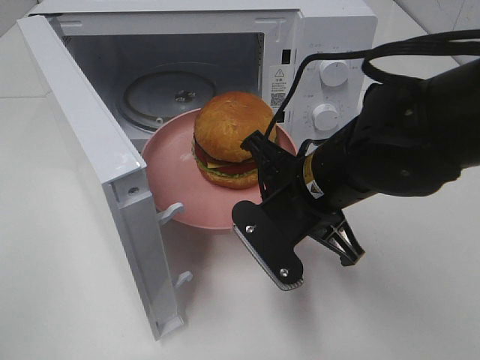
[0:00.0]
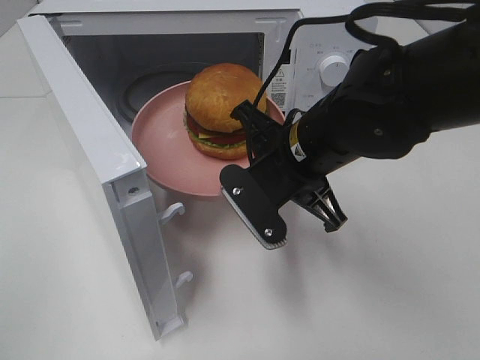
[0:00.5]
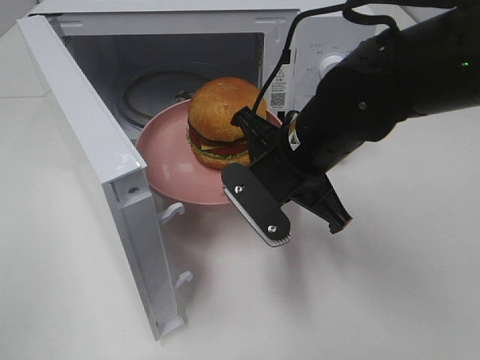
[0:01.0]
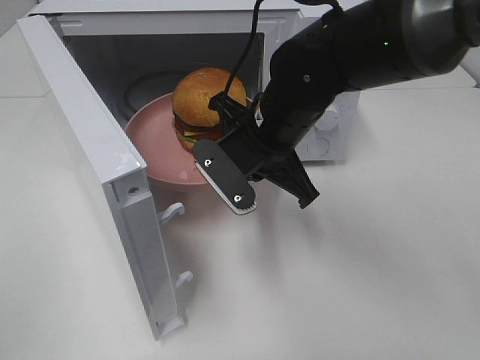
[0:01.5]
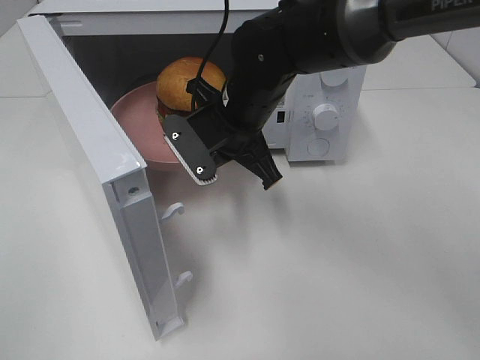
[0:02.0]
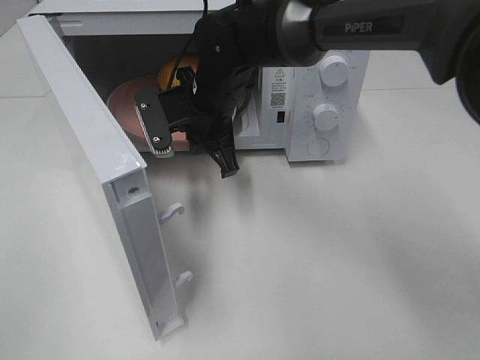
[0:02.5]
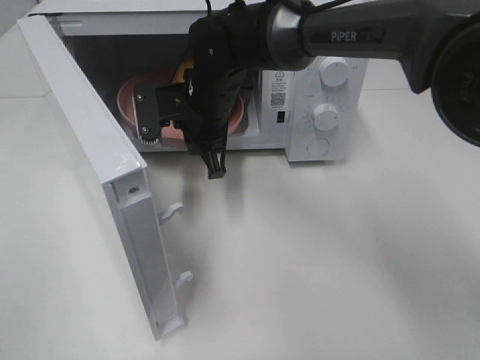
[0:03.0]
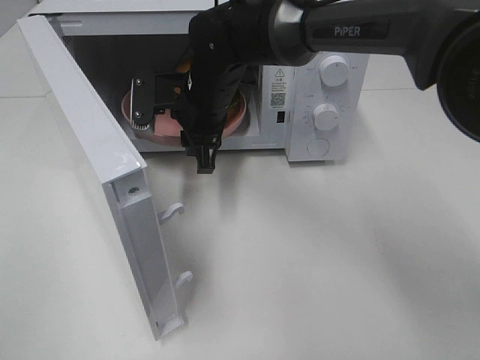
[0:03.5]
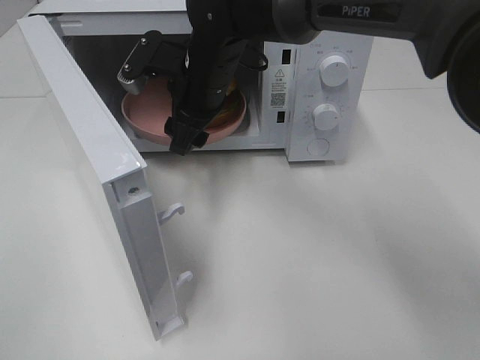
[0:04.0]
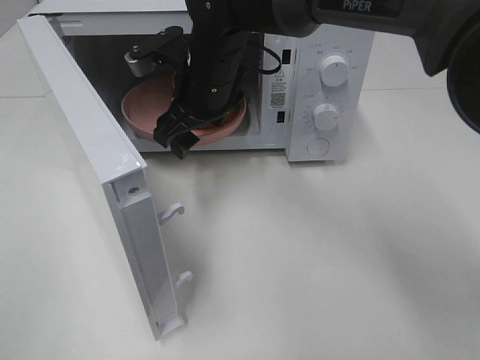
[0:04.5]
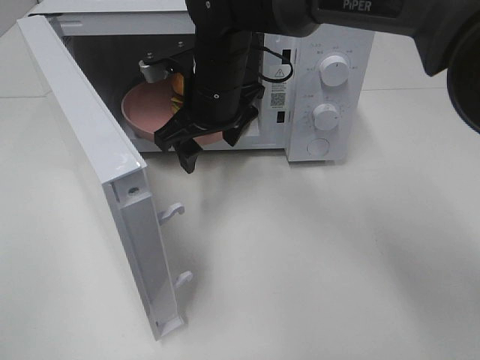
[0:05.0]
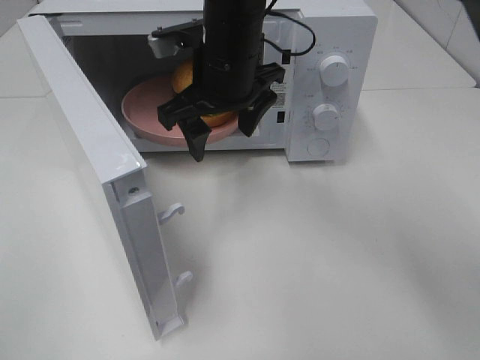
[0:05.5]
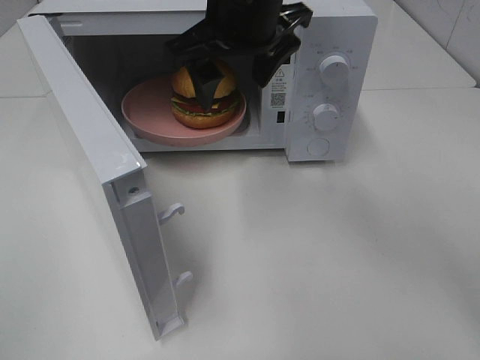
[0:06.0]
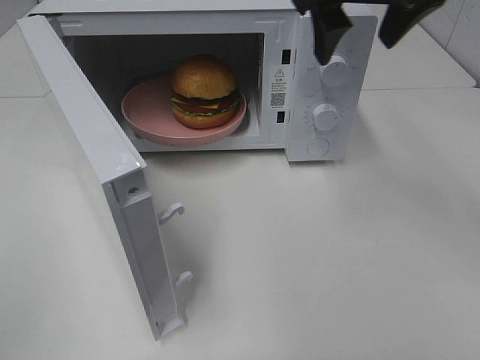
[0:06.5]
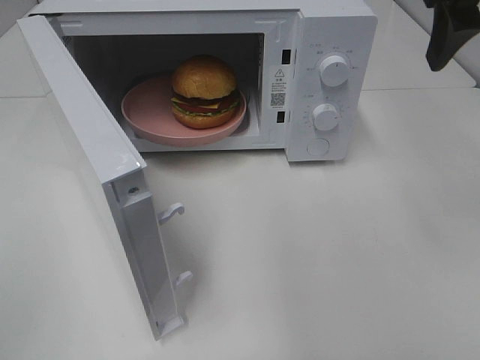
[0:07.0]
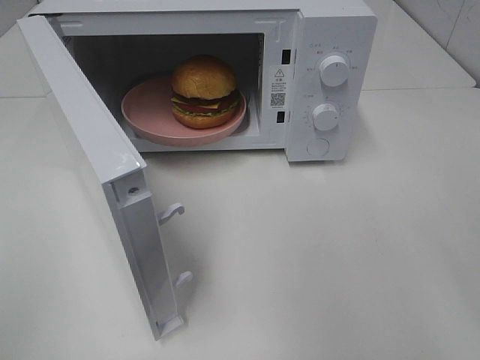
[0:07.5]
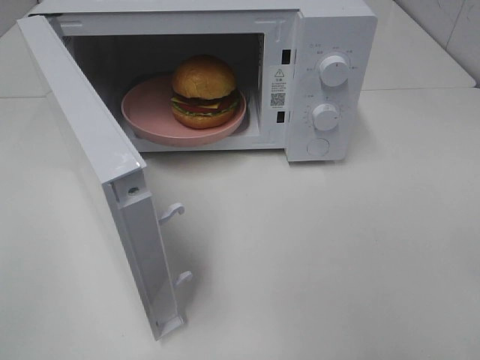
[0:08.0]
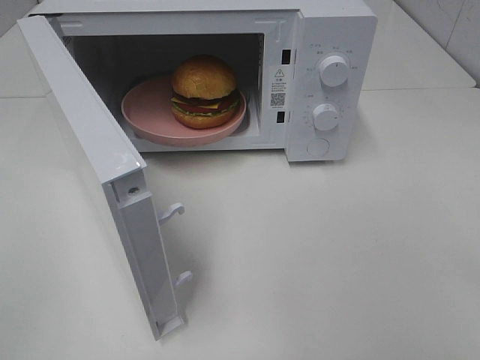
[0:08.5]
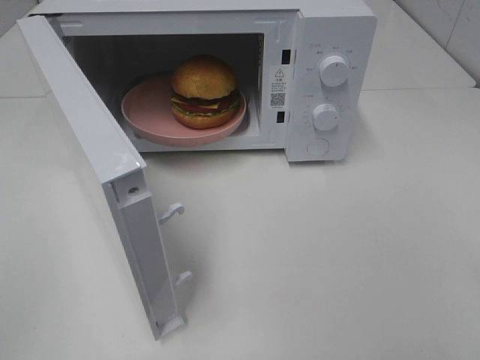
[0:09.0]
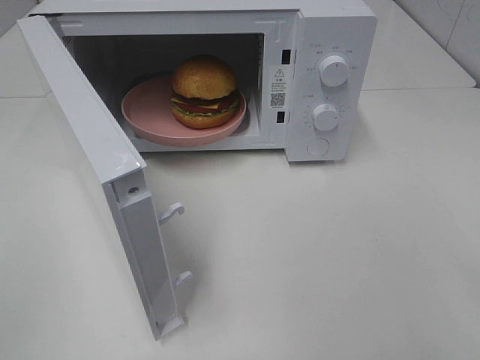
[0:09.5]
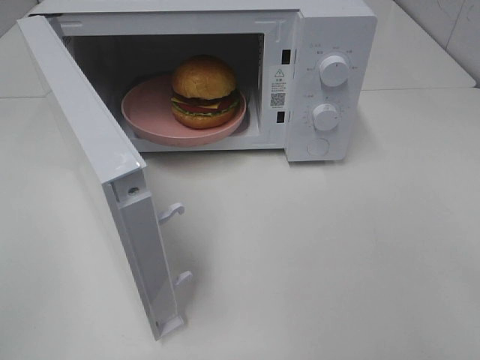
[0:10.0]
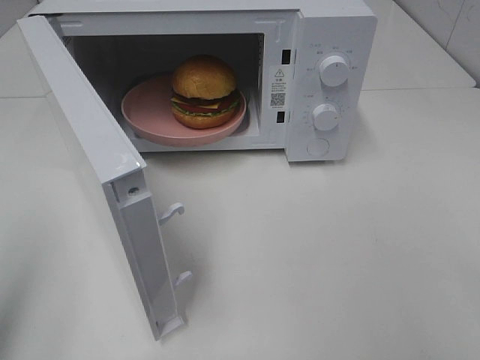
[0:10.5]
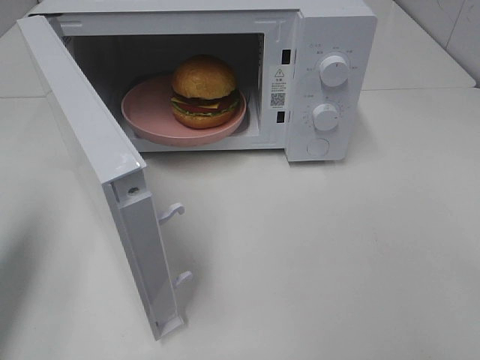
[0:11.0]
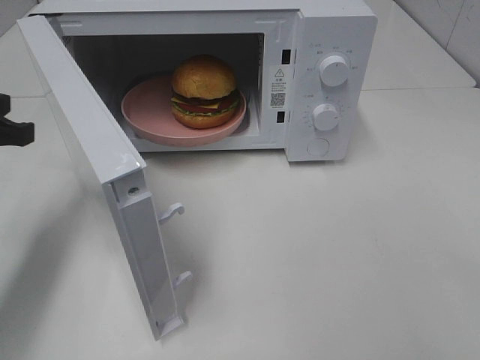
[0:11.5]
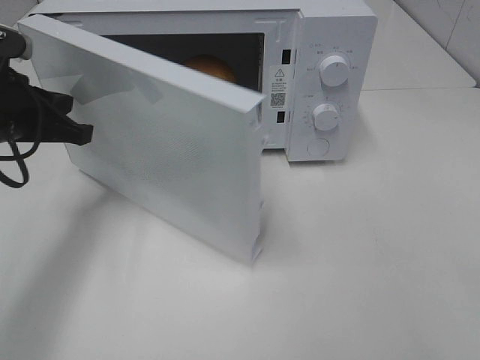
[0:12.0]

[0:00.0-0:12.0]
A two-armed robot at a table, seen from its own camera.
Task of the whole recording: Heat the burger.
Step, 0:00.0 to 0:03.0: Right hand: place the plate in the microwave.
0:00.0 to 0:02.0: The right gripper moves forward and to the left, approximately 15 cm.
0:02.0 to 0:04.0: The right gripper moves about 5 cm, and opens up.
0:04.0 to 0:06.0: The right gripper heads upward and backward, covering some 15 cm.
0:06.0 to 0:08.0: The right gripper travels to the right and backward by roughly 35 cm.
0:10.0 to 0:12.0: The left gripper is displaced forward by roughly 30 cm.

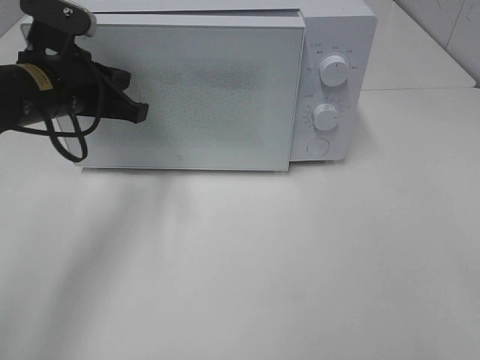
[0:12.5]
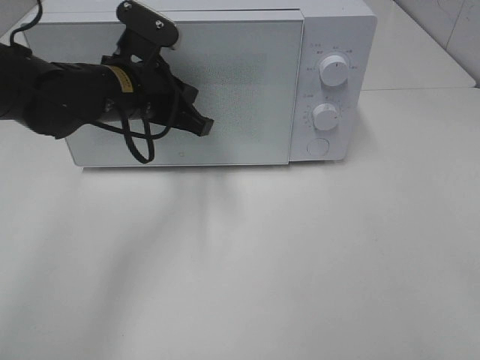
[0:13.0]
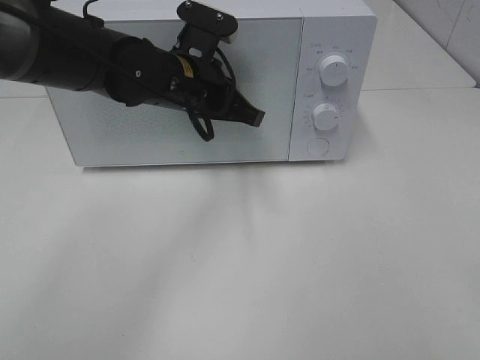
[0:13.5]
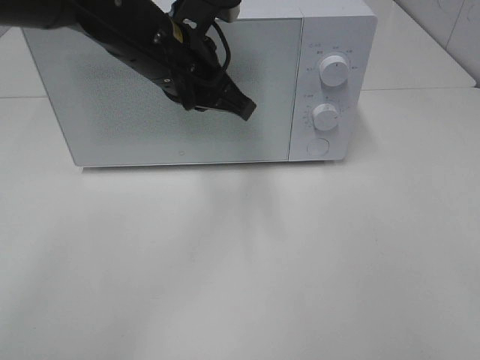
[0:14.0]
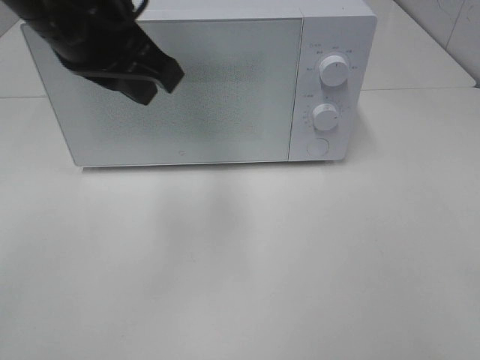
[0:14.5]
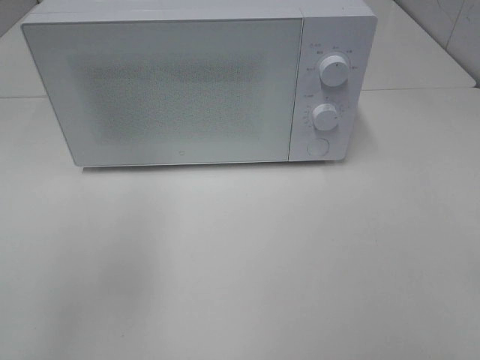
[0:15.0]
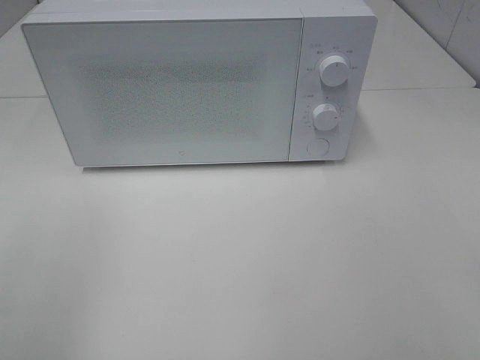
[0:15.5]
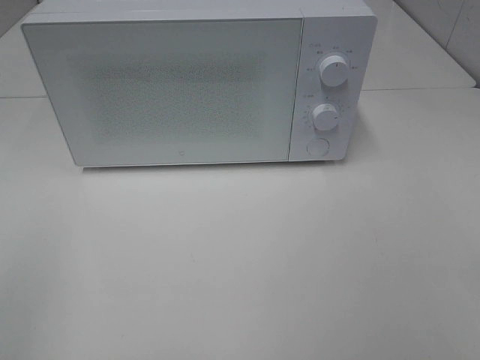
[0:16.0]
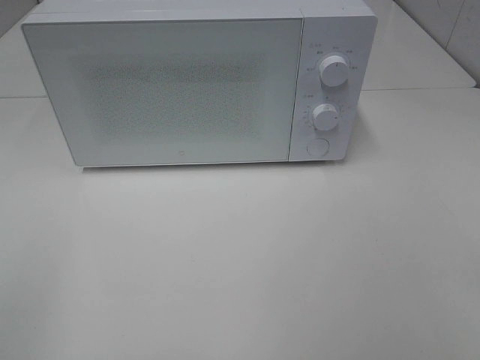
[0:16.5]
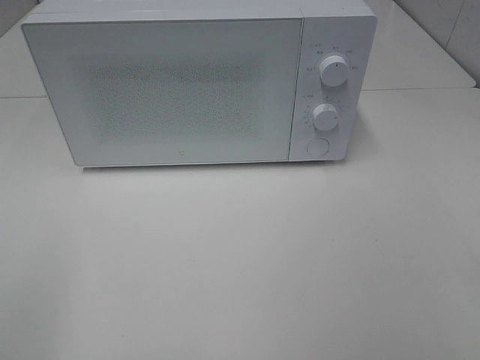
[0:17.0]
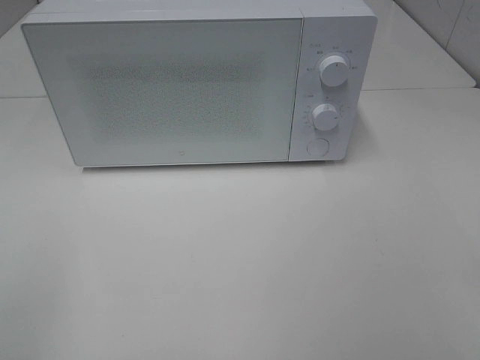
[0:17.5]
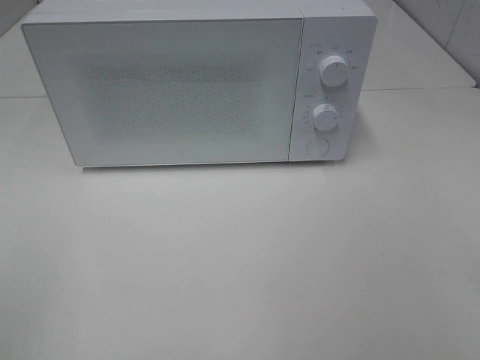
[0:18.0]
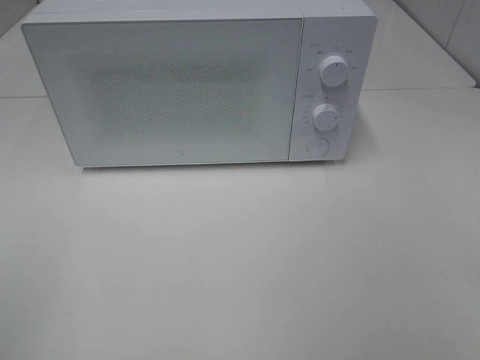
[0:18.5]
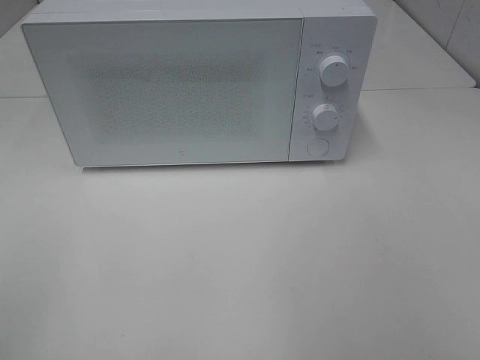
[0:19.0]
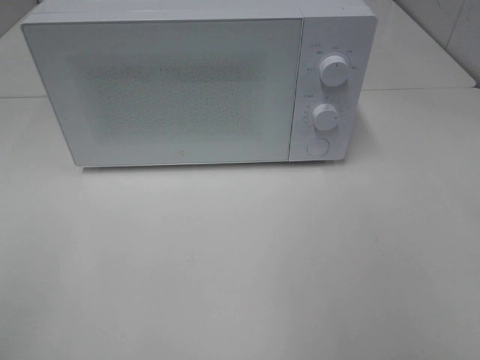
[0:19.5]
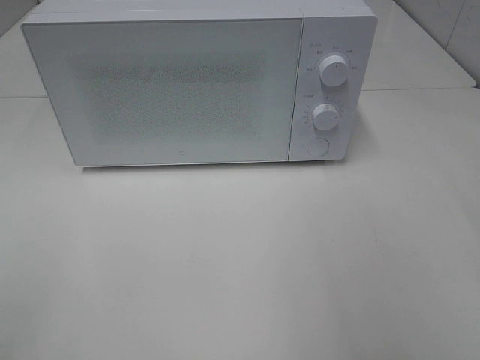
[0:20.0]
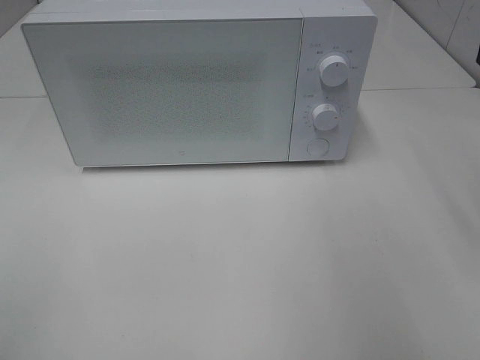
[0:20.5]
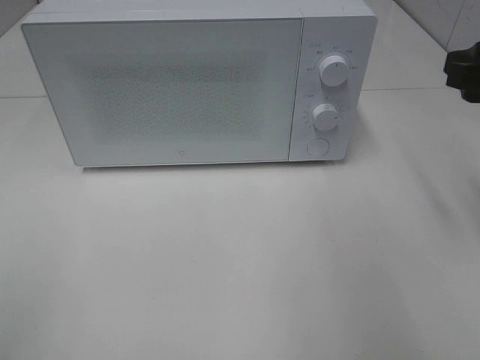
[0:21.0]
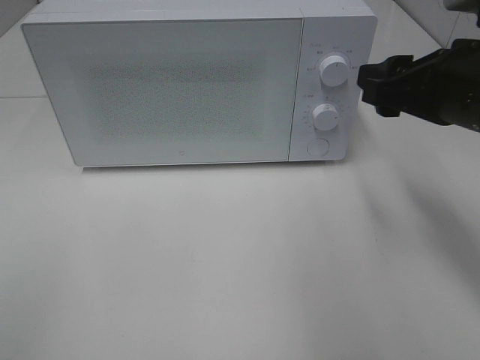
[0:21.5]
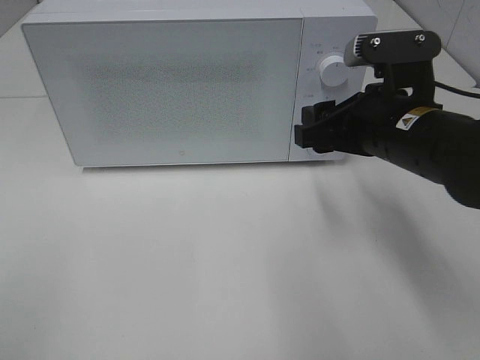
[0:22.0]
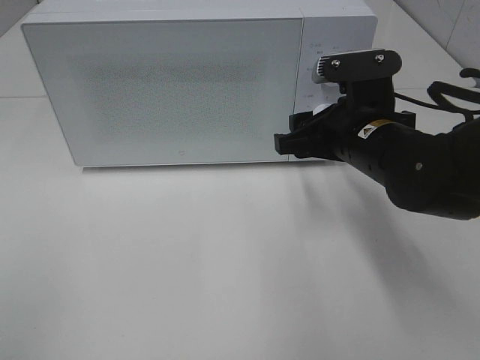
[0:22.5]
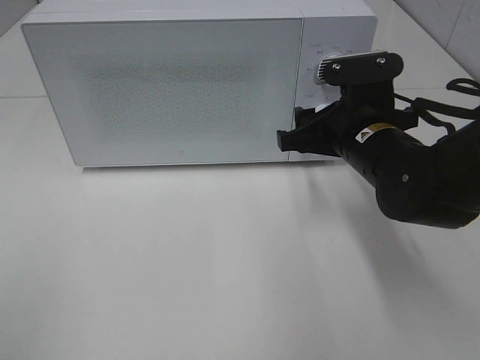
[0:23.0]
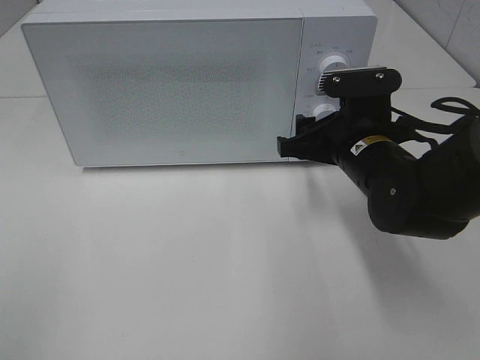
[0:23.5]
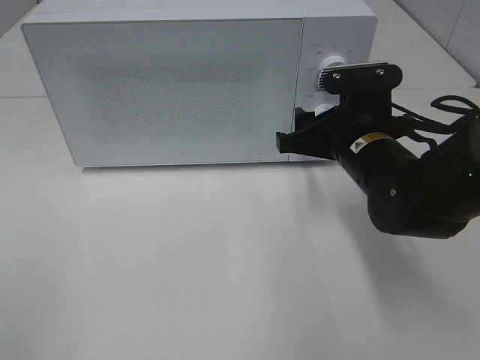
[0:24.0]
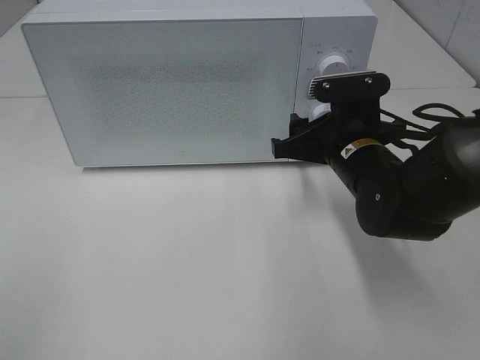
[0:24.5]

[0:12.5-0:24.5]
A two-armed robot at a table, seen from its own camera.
Task of the whole recording: Heat the burger.
0:12.5 to 0:14.5: The left gripper moves upward, to the right and backward, some 15 cm, and opens.
0:14.5 to 0:16.5: The left gripper is displaced backward and to the left by about 35 cm, and closes.
0:20.5 to 0:22.5: The right gripper moves to the left, downward and forward, roughly 20 cm.
0:22.5 to 0:24.5: There are only small adjustments of the grippers.

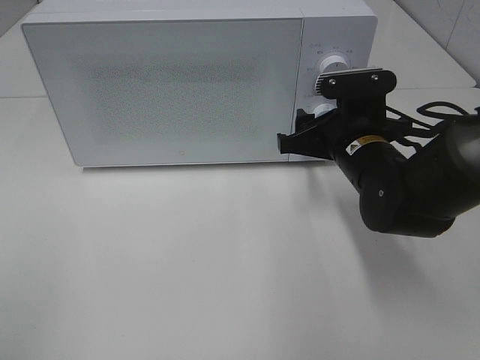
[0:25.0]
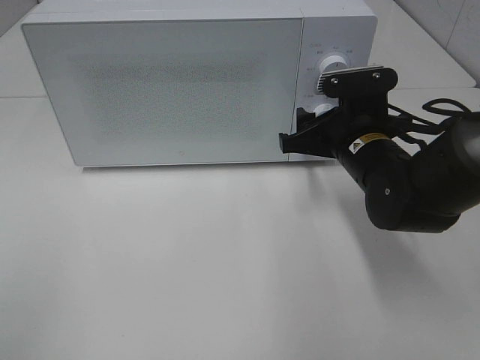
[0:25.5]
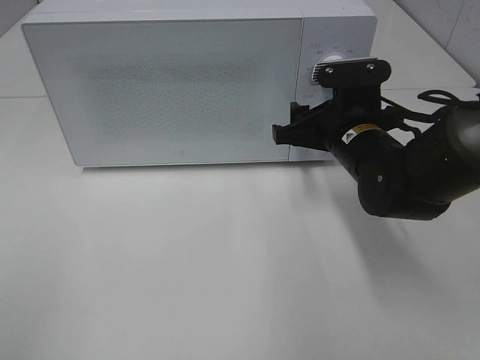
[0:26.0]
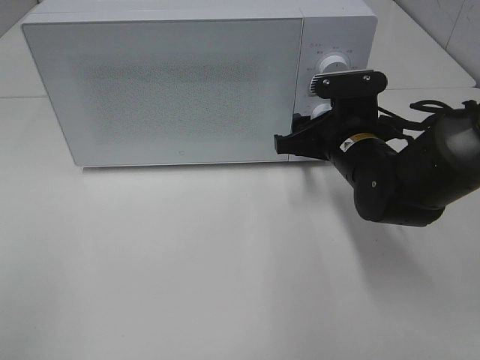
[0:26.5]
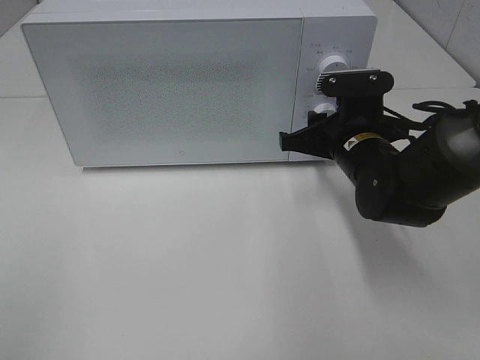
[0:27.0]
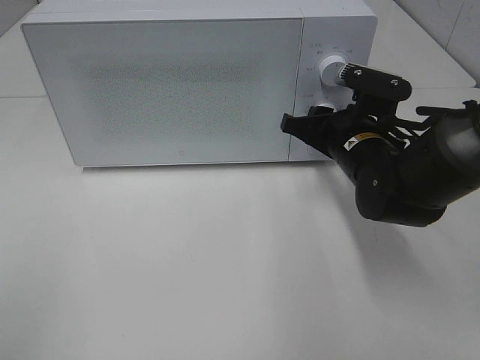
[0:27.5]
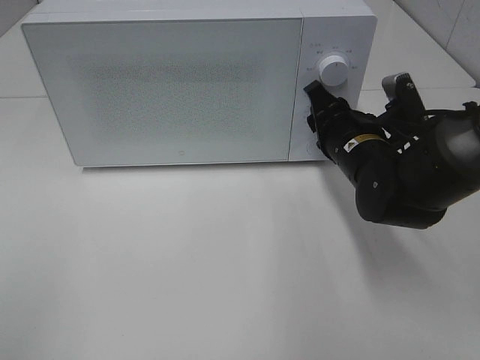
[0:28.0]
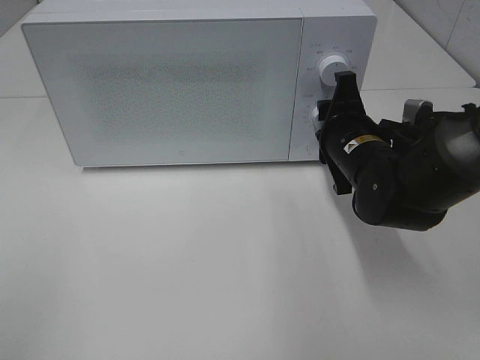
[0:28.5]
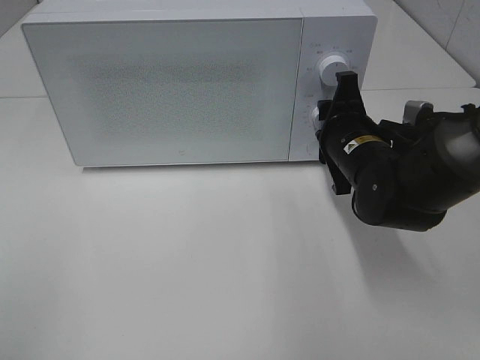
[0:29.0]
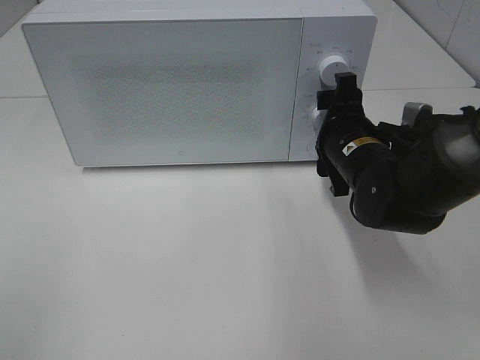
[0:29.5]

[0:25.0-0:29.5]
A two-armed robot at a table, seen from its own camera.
Task of the whole recording: Heat the burger.
Step, 0:25.0 to 0:29.0: Right hand: twist timer button.
0:25.0 to 0:27.0: There are only small adjustments of the grippers.
0:27.0 to 0:29.5: The right gripper opens up.
